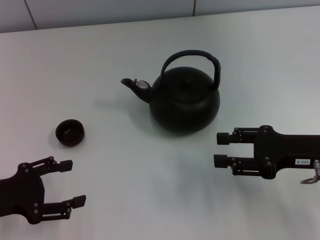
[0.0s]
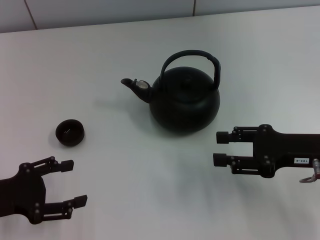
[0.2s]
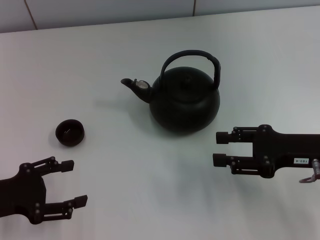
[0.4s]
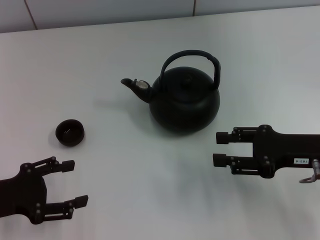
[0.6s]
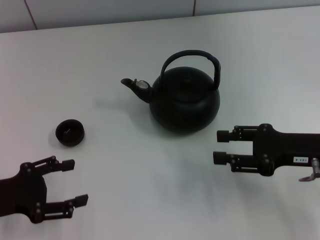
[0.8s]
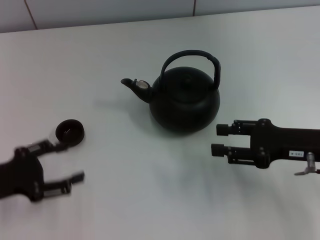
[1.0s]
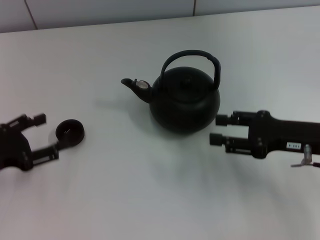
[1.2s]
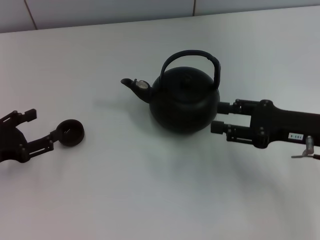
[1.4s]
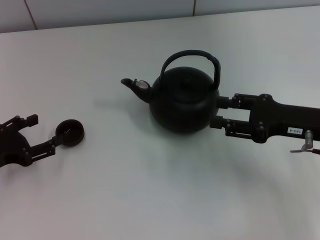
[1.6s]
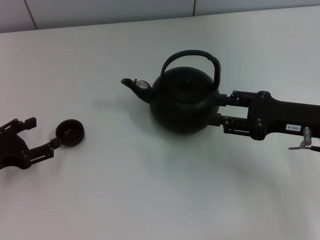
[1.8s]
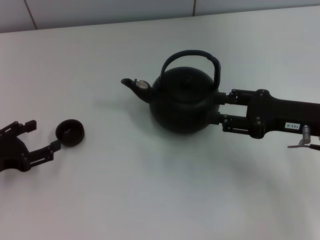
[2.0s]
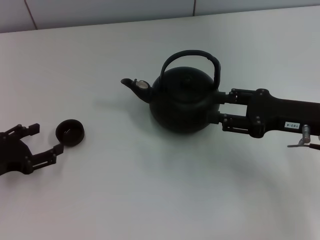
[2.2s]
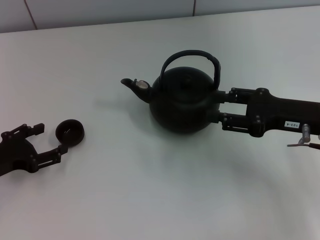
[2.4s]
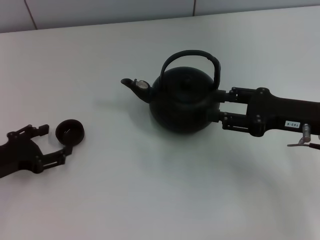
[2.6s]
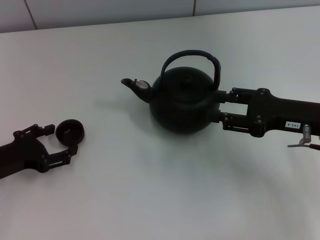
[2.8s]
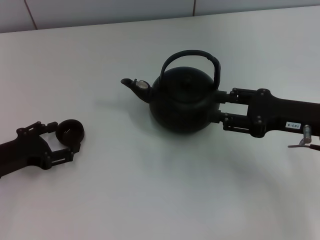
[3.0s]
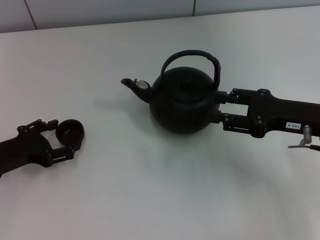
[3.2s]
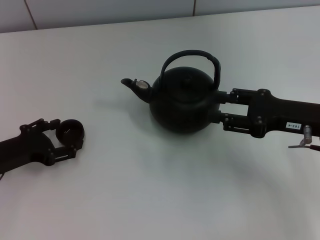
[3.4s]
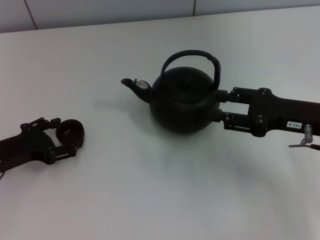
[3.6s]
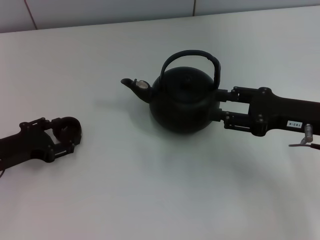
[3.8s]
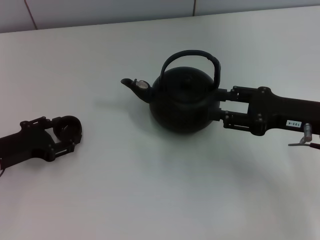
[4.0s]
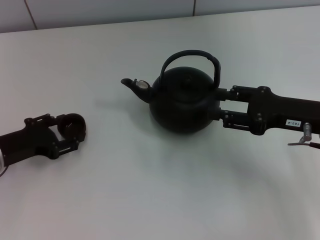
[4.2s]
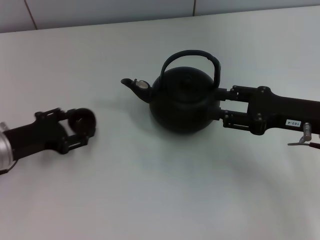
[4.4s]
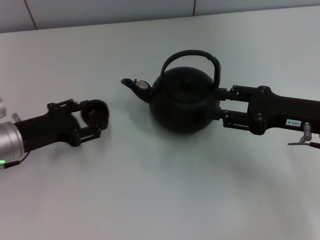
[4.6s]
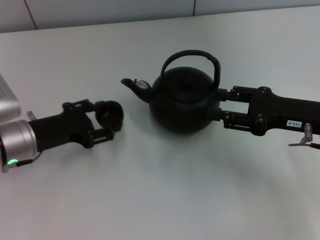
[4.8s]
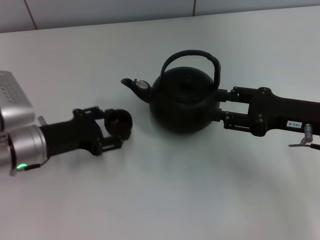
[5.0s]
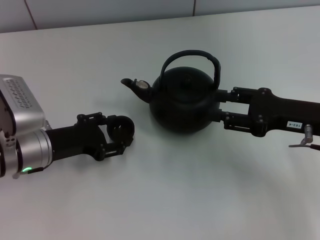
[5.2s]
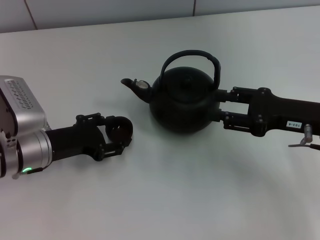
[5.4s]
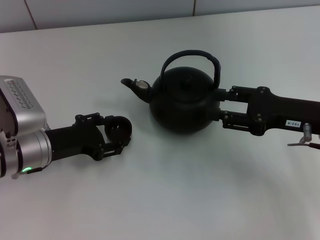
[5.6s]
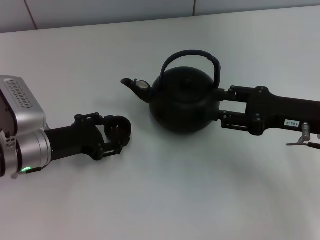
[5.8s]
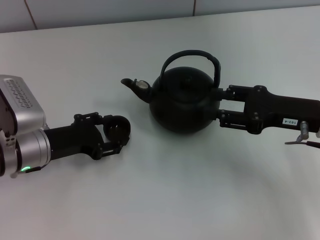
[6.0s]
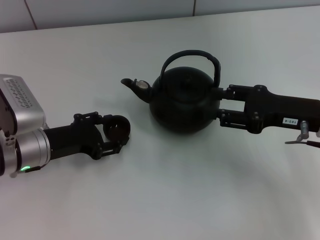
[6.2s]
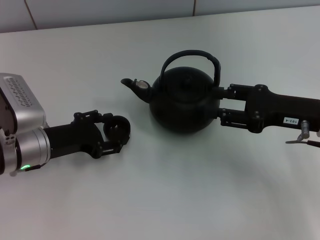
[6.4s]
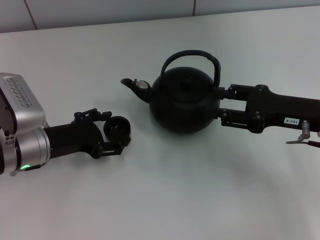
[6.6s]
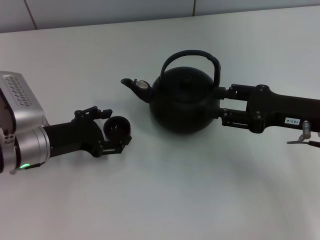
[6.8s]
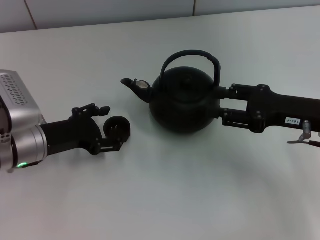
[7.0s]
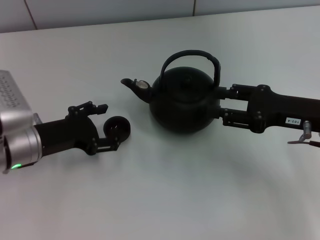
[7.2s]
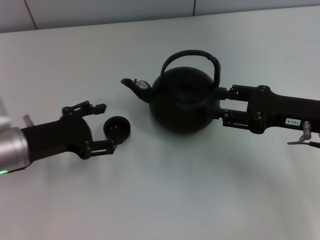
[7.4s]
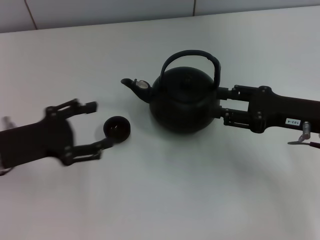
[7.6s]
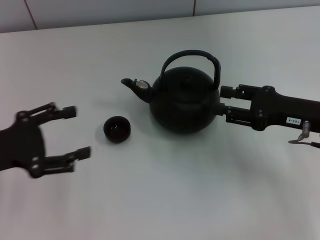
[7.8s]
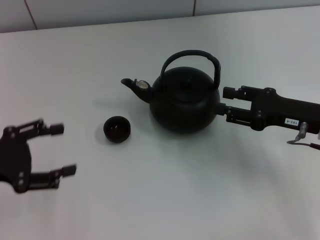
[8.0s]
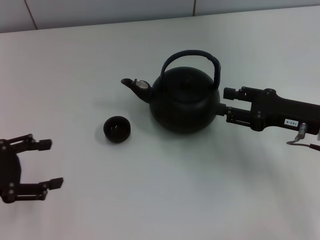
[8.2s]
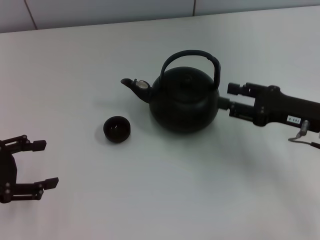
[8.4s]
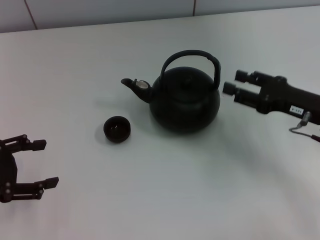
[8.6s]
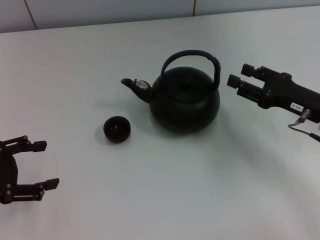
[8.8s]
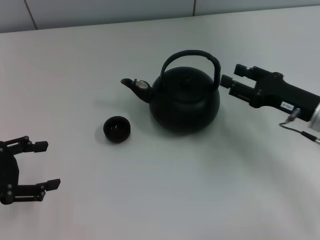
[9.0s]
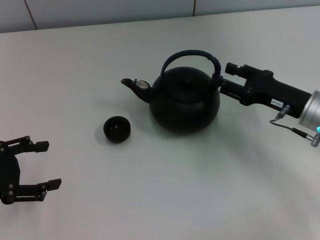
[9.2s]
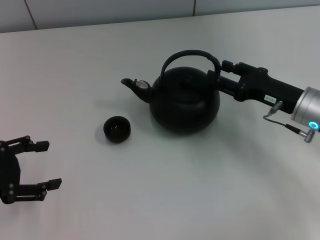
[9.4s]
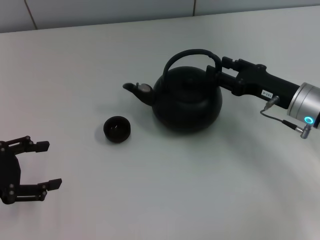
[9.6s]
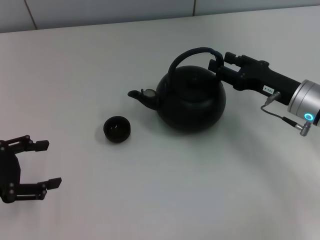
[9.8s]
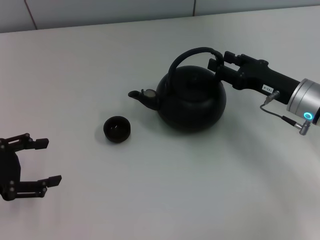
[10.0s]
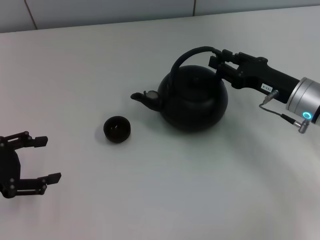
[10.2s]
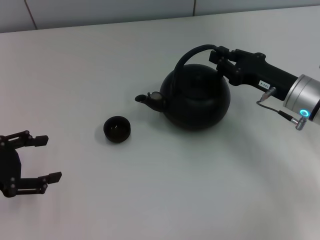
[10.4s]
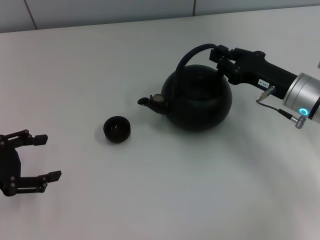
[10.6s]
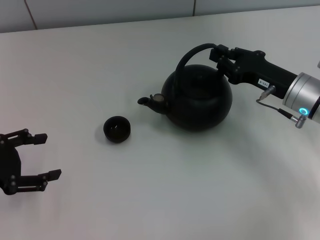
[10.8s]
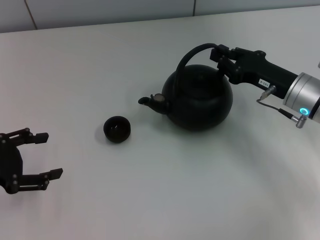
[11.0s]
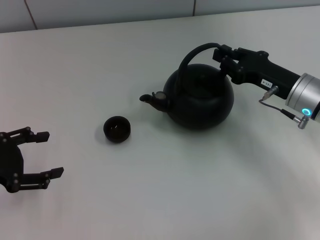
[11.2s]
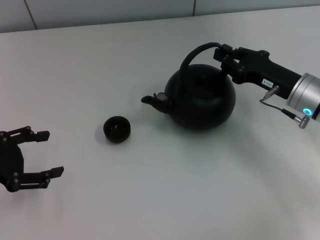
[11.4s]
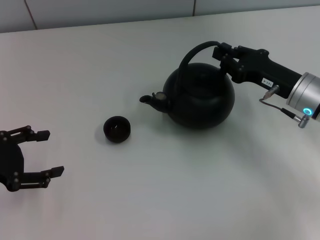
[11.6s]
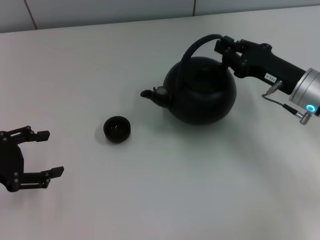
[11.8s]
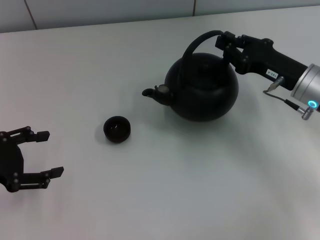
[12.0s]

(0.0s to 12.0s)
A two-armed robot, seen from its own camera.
Task of the whole recording: Grasp the handle of the teapot with one hand and pour tea into the teacup.
Step, 0.0s - 4.4s: Pick up the teacup with the left gripper.
Step, 4.6s - 7.4s: Place the teacup in the center of view with the left gripper.
1.6s - 3.0s: There are only small adjustments of the grippers.
3.0s - 4.4s: The left gripper closes.
4.4s - 6.0s: The left gripper goes approximately 5 cm to the right.
6.0s - 7.6s: The left gripper moves some 10 cm, and opens its fingers.
7.6s - 9.0s: The left gripper travels to the left by about 5 cm.
9.0s - 10.4s: The grippers move only a little.
10.4s - 12.0s: The right gripper closes its fingers.

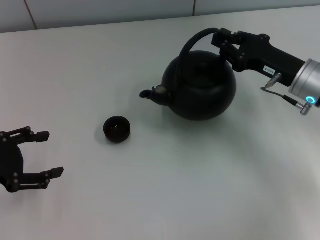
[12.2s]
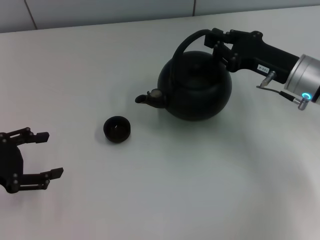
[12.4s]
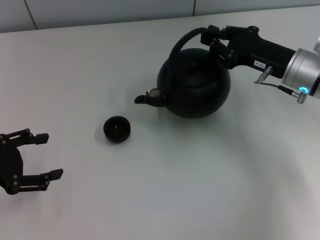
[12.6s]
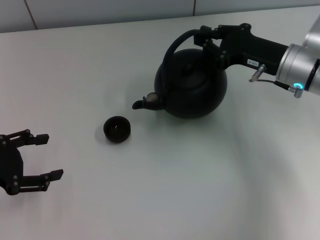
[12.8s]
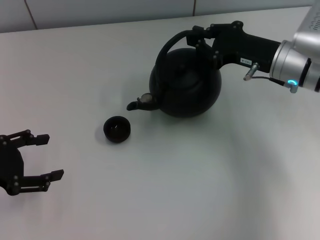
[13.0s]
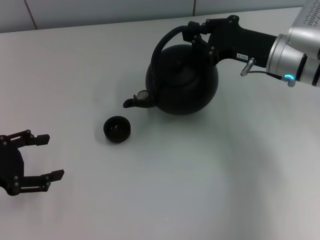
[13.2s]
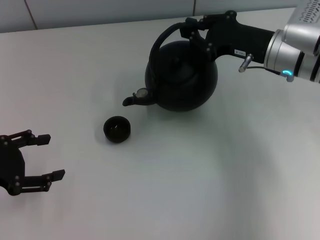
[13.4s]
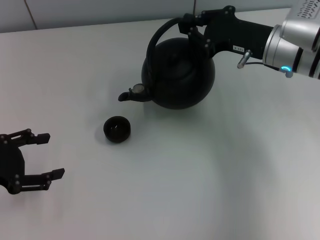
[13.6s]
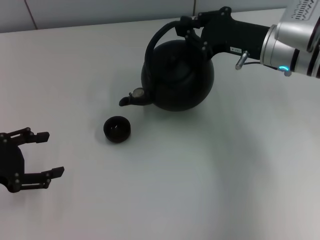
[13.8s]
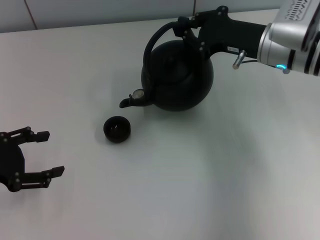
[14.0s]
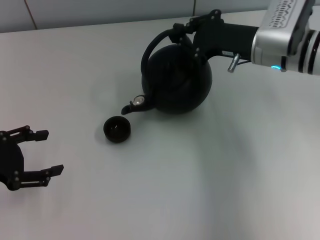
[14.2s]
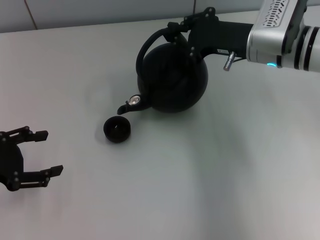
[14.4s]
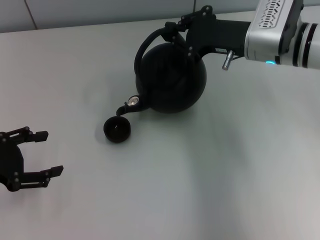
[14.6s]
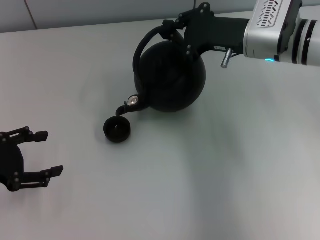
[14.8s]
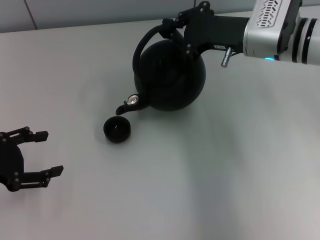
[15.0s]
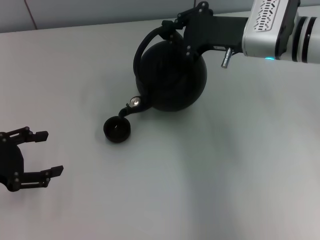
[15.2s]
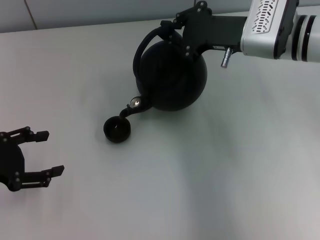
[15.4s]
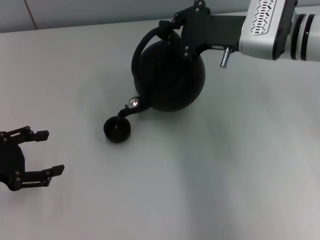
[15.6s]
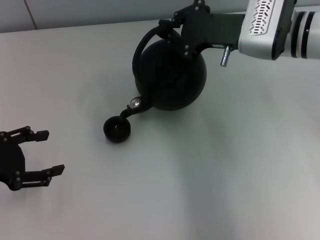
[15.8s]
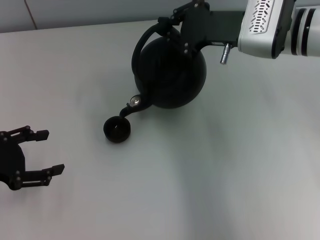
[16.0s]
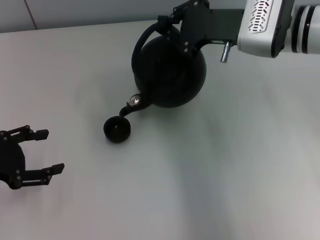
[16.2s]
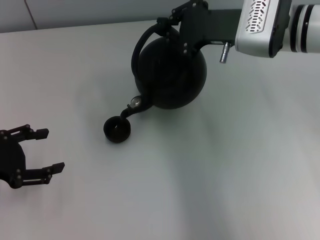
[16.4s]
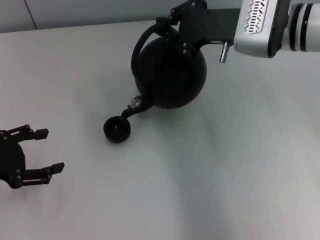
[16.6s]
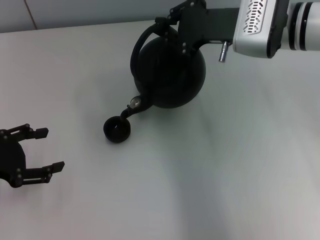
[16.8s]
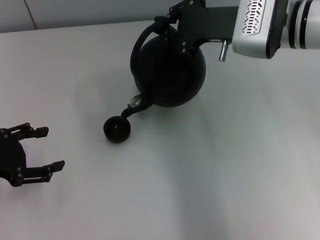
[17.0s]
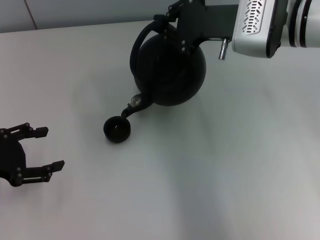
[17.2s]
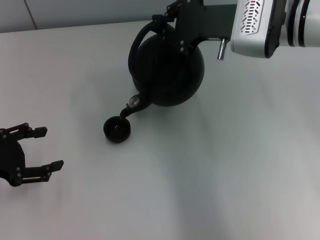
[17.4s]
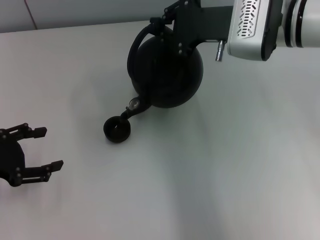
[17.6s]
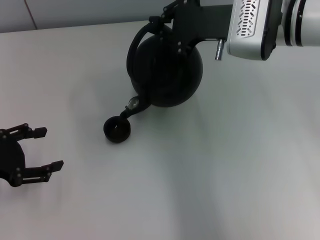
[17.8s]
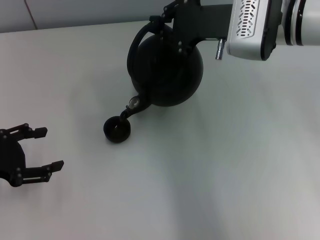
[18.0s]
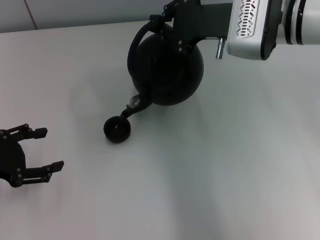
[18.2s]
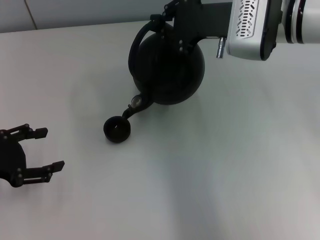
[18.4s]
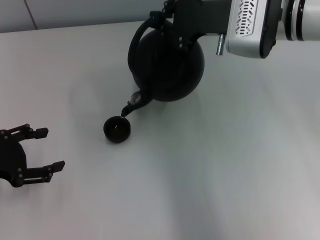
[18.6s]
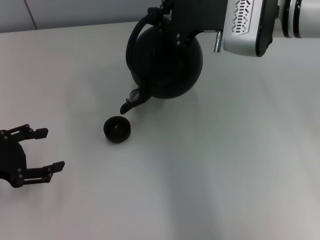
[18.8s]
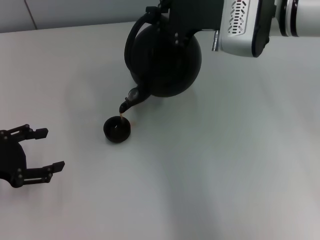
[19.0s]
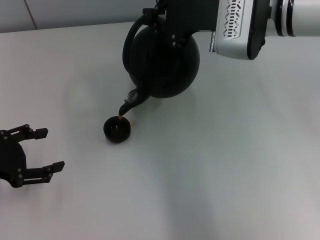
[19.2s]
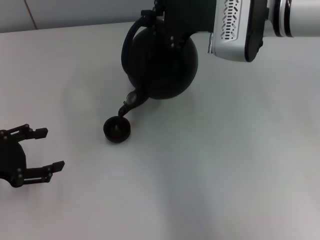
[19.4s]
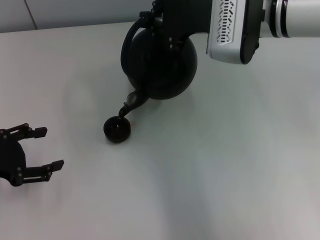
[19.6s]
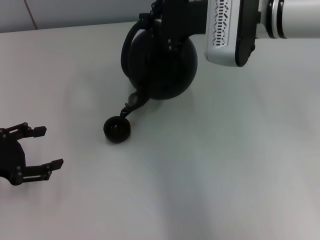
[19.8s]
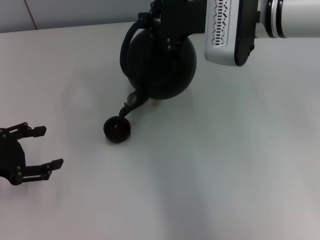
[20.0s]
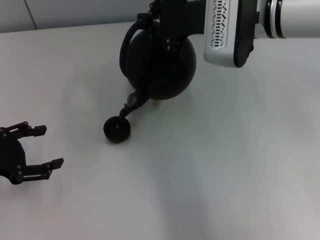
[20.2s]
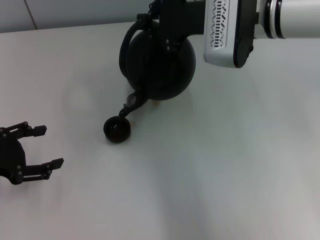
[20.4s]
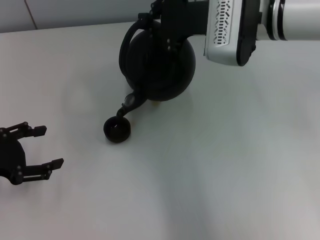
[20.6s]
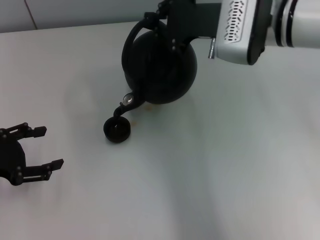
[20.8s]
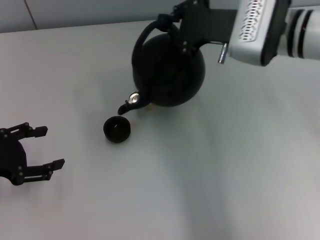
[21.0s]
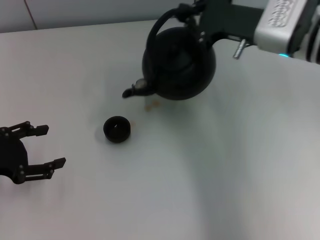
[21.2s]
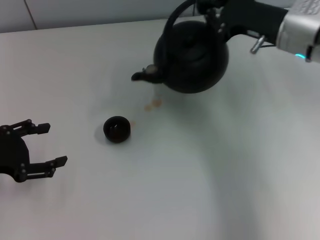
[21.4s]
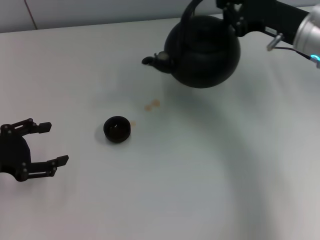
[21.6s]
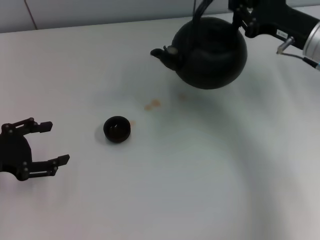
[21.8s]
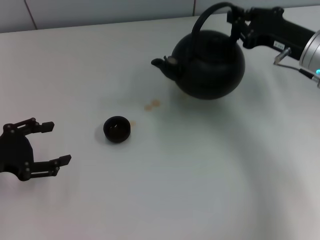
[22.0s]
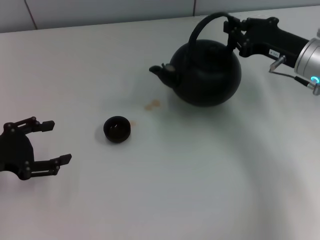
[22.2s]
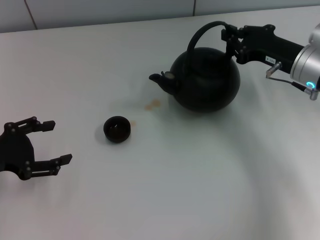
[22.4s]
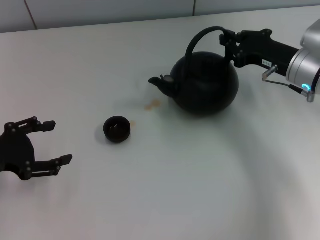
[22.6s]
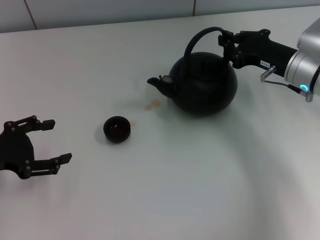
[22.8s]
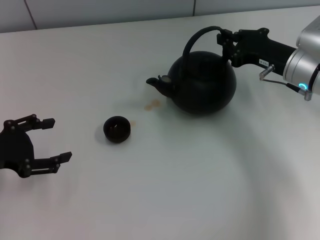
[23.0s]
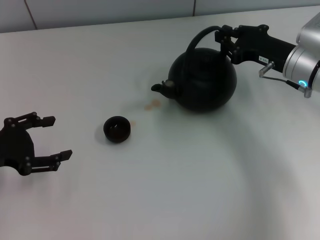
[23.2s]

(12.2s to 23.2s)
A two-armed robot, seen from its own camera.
Task of the whole recording: Grasp the handle of the teapot with one hand and pour tea into the teacup.
12.2s - 13.8s: The right gripper moves some 10 cm.
13.8s - 15.4s: There are only small adjustments of the grippers.
15.4s - 17.0s: The grippers stay close to where they were, moving slightly.
17.0s - 18.4s: Neither gripper changes place.
18.4s - 20.0s: There are only small adjustments of the grippers.
20.0s - 21.6s: The right gripper is displaced to the right by roughly 10 cm.
21.6s - 23.2s: The right gripper is displaced downward by about 5 cm.
